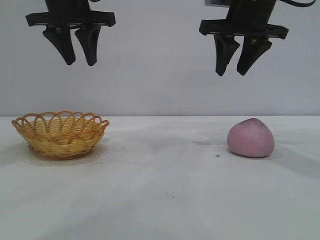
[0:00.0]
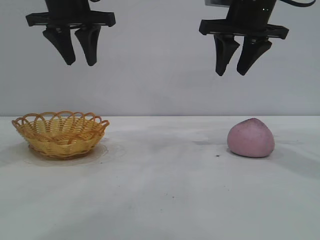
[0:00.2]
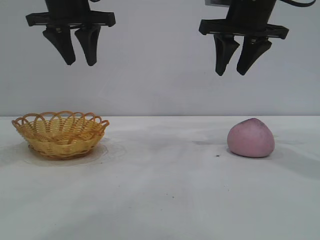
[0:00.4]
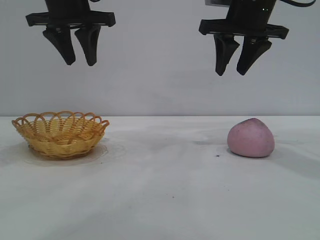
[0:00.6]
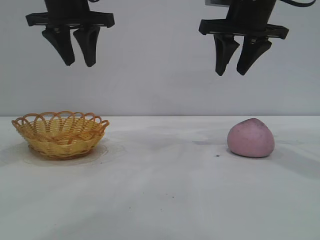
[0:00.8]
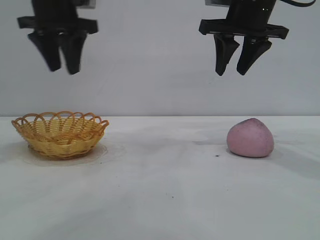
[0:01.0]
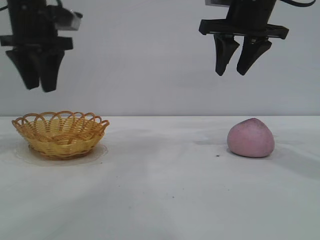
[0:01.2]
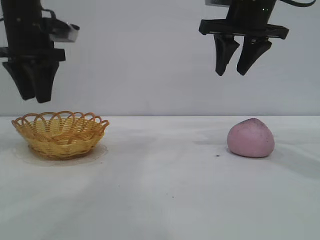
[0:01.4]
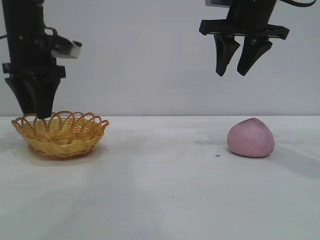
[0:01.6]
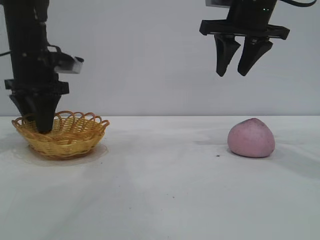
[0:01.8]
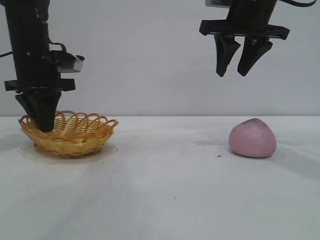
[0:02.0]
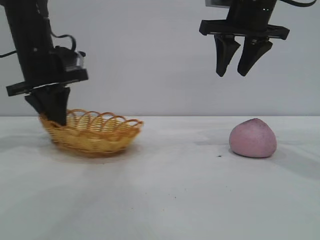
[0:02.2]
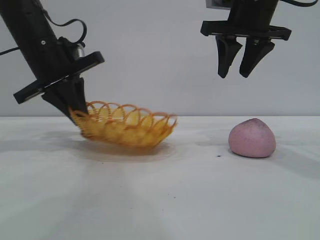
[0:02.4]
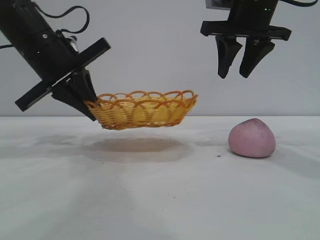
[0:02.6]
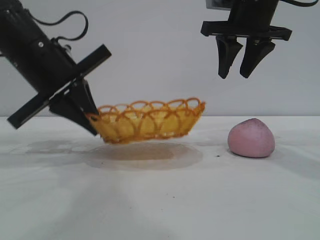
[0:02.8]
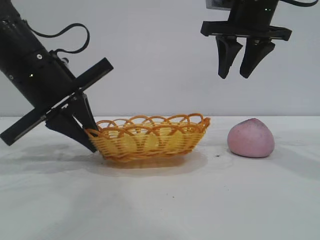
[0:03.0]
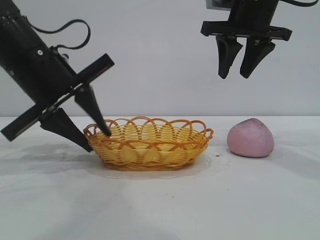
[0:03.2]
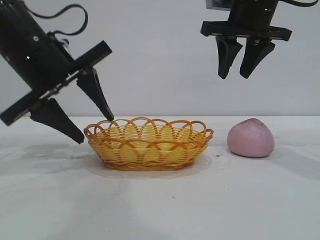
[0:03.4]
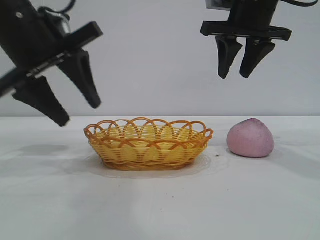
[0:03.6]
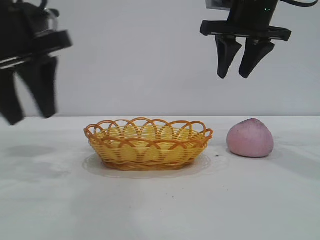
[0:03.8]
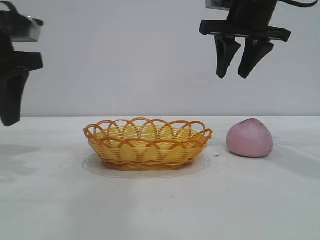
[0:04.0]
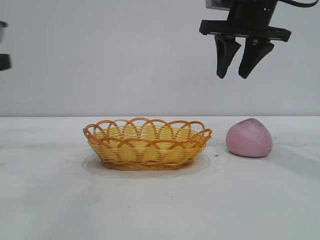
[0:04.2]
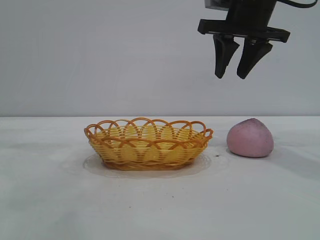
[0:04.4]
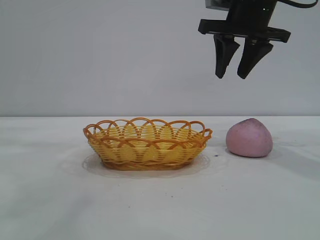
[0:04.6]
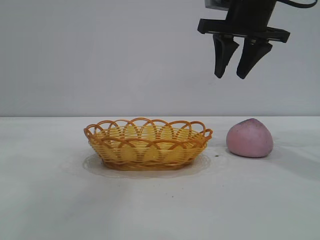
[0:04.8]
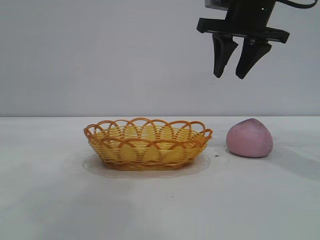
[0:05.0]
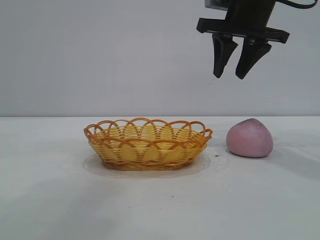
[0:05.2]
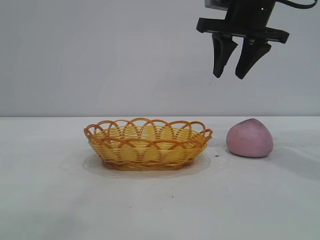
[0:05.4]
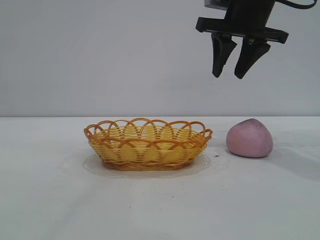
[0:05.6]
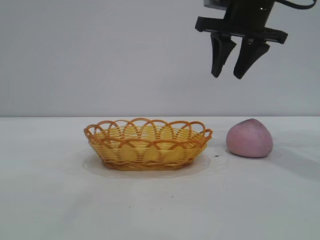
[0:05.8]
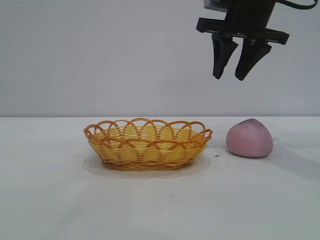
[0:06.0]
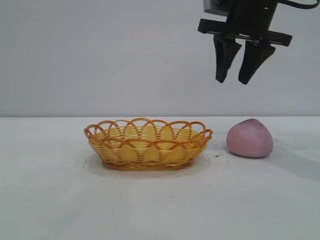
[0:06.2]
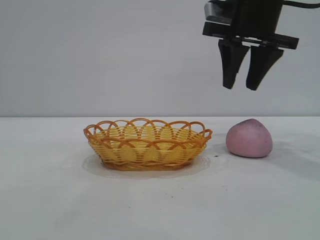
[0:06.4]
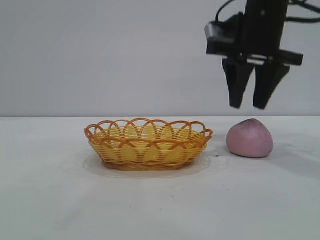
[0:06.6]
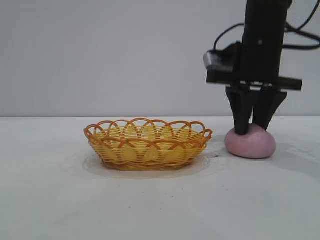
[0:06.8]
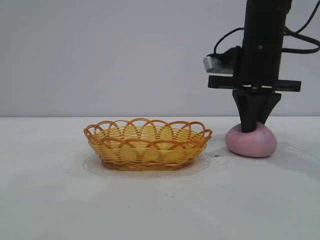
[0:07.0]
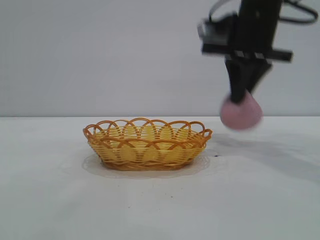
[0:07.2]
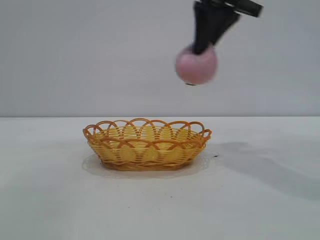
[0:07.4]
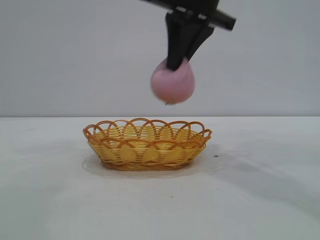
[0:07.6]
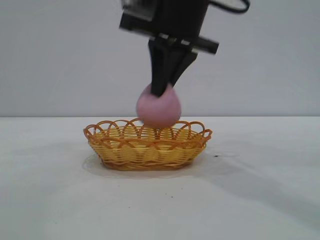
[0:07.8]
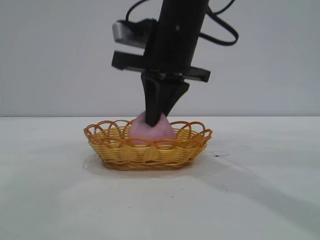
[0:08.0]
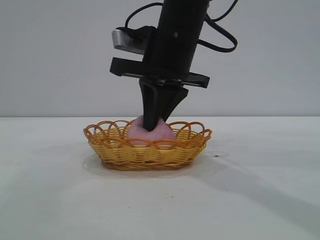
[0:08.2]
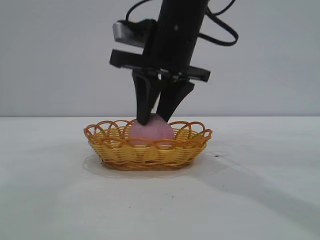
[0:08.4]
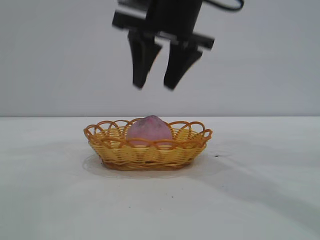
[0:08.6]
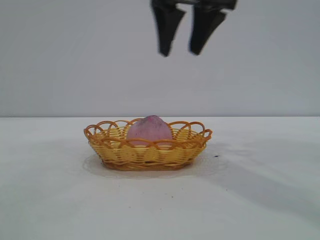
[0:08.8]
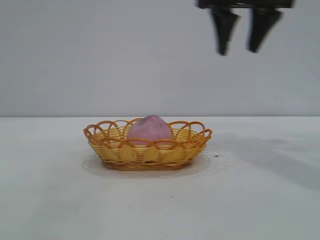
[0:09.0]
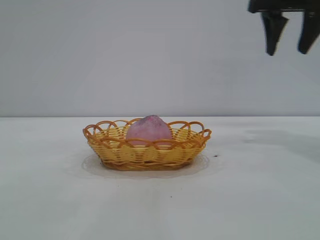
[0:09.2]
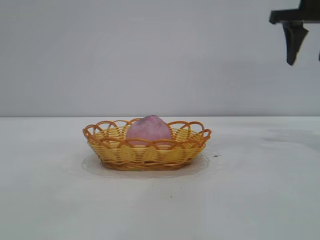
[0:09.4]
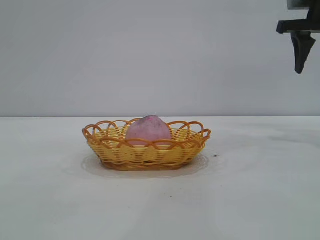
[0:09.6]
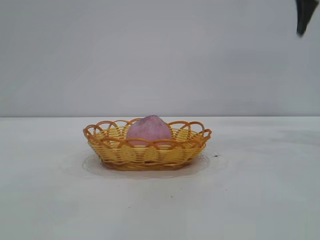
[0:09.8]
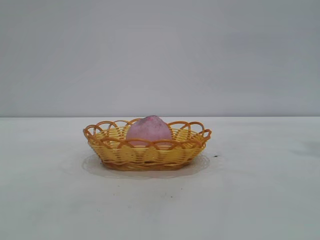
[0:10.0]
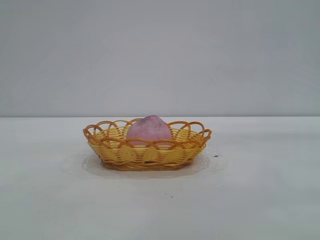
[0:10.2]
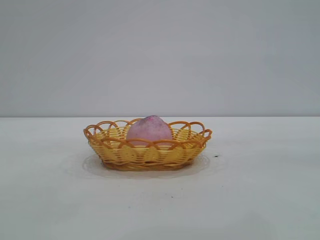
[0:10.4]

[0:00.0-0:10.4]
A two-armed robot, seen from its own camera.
Task of the whole recording: pick up the peach and put it into the basket.
Step, 0:00.0 to 0:03.6: Move the basket to the center of view.
Step, 0:03.8 to 0:07.2: Pick up the peach.
Step, 0:07.4 to 0:08.6: place the peach into the basket.
